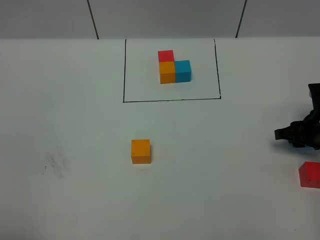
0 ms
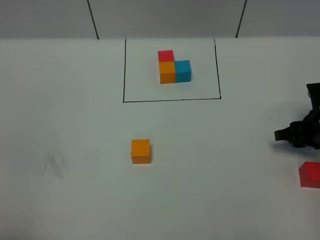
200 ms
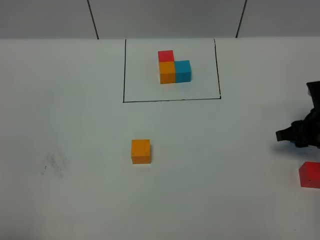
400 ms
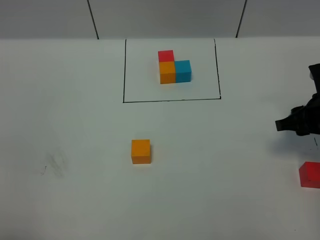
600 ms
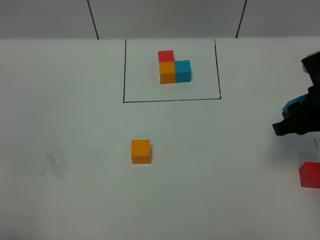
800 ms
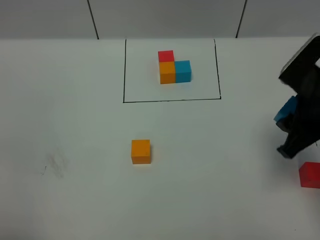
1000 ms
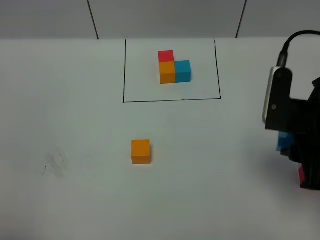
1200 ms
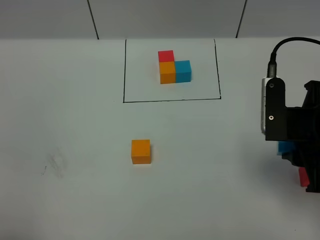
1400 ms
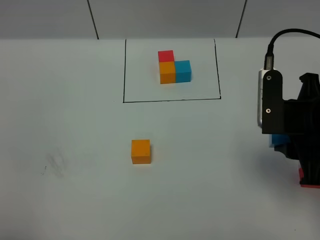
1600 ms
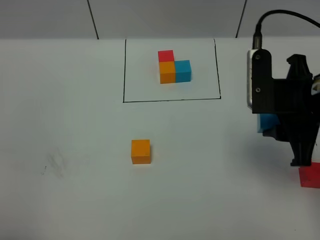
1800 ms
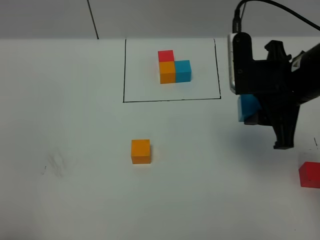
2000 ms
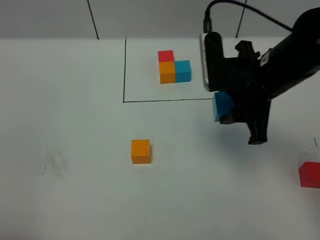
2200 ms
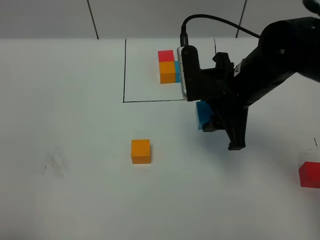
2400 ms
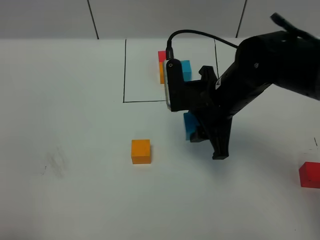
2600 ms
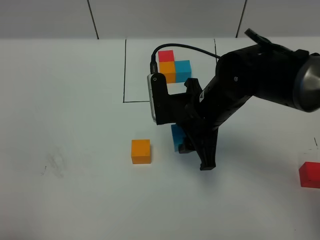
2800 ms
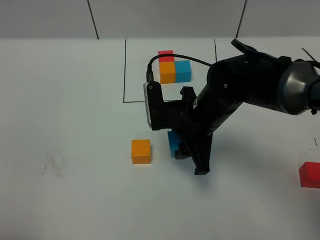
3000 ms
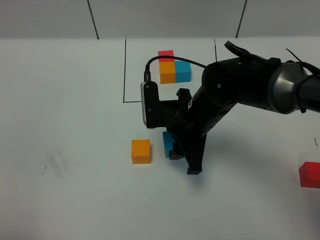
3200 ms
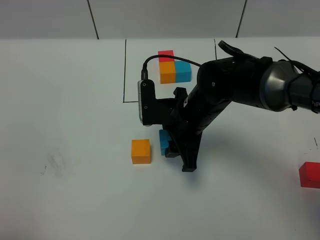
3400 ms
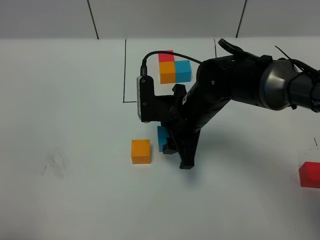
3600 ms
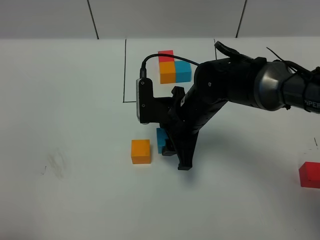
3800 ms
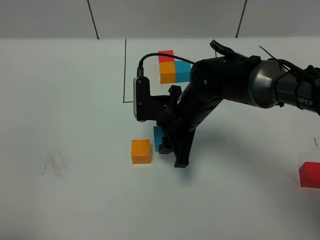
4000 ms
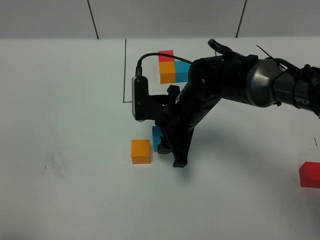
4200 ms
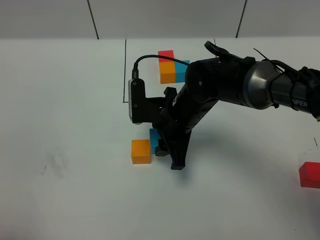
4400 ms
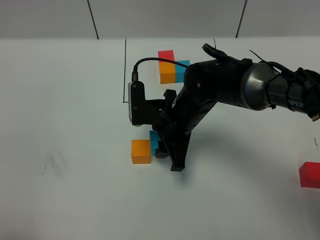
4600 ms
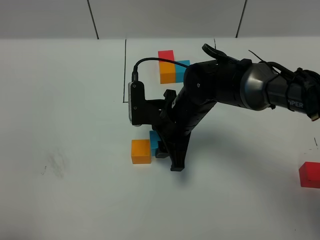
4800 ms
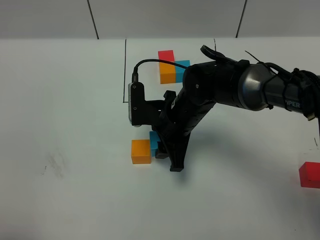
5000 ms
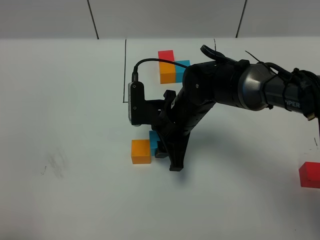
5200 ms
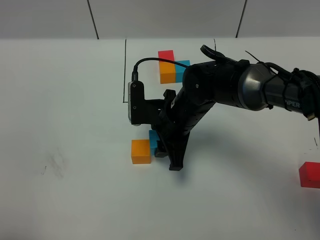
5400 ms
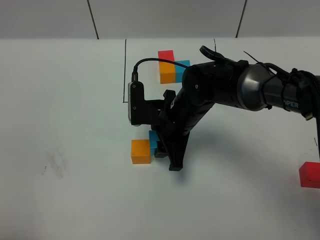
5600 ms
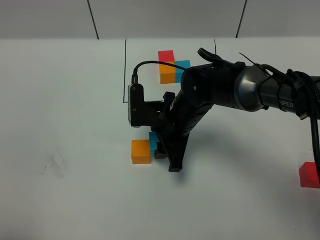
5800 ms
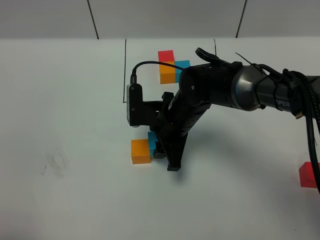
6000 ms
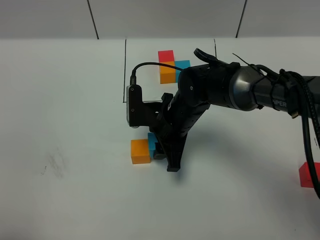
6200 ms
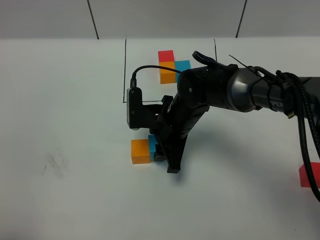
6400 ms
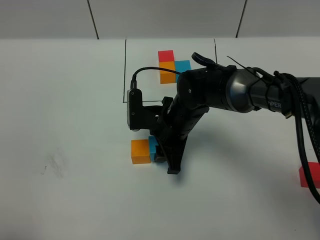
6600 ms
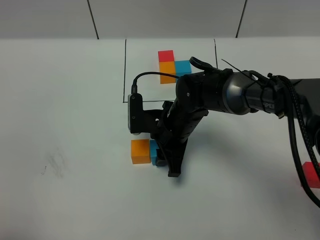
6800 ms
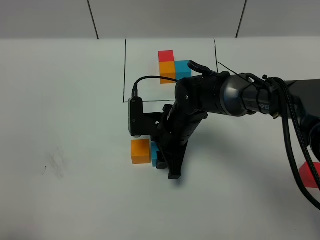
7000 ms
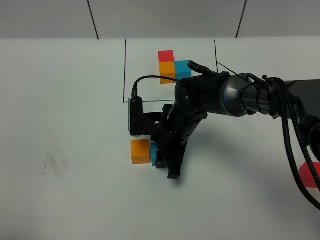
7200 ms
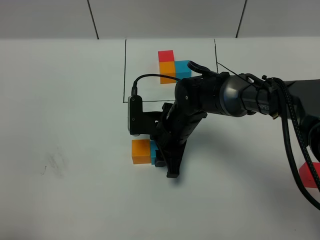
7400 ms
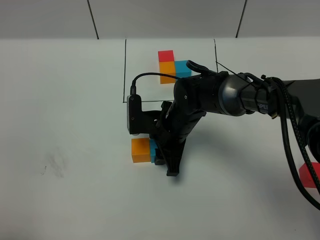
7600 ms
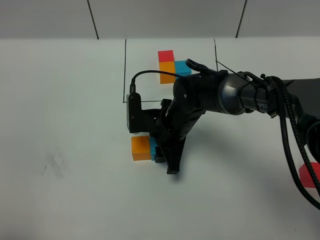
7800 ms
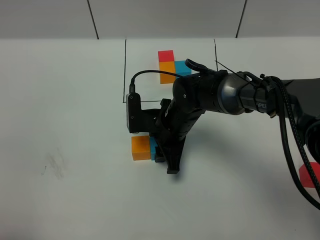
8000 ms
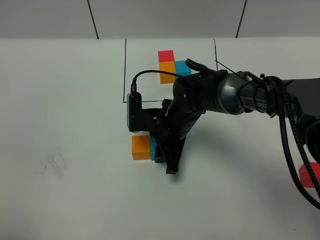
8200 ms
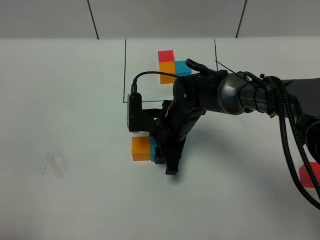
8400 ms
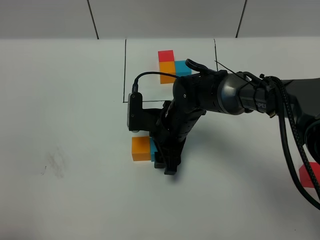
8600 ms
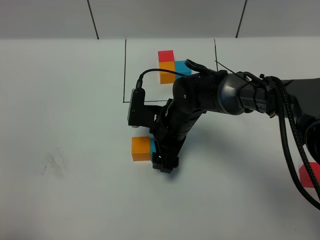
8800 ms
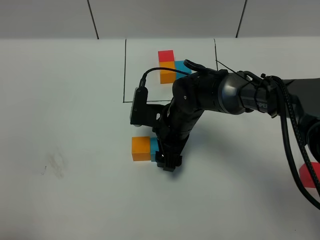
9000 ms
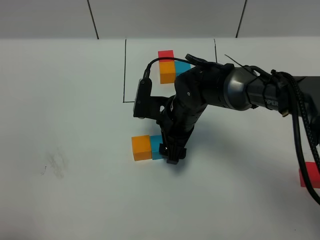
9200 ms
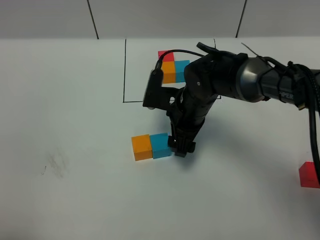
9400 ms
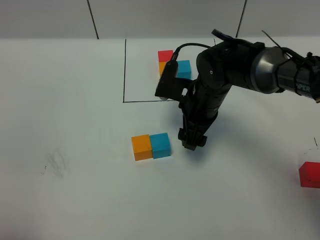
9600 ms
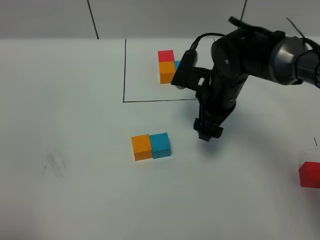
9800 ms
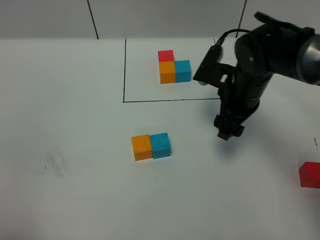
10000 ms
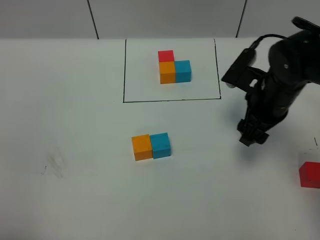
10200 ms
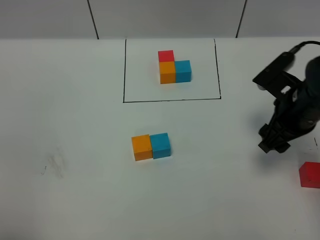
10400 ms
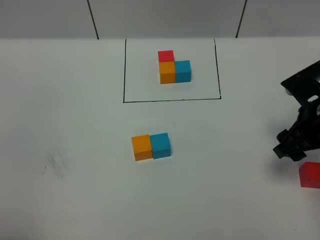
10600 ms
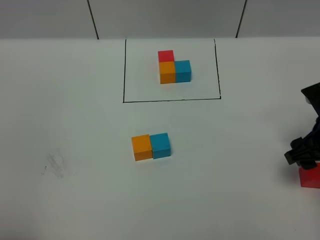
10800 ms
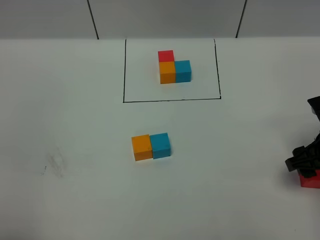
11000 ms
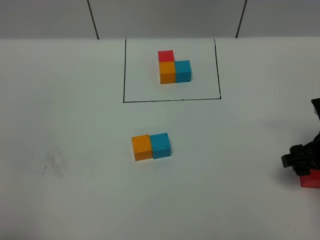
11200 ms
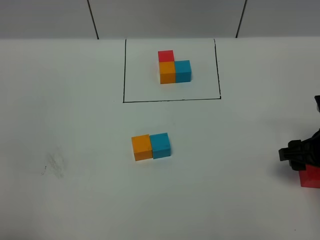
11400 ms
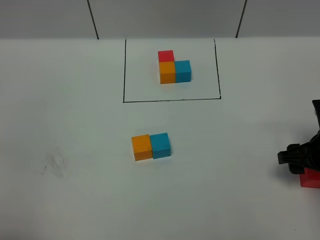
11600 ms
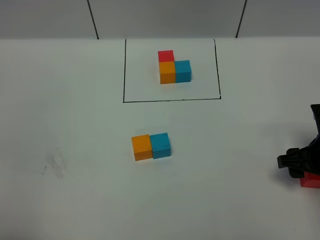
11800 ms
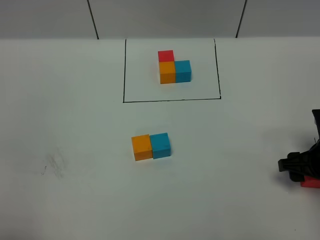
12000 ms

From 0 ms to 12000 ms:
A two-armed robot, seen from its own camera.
Task of the whole recording: According to the building block template in front, assemble the scattered blocks together.
Step, from 0 ms to 9000 ms: Put the blue cube on the right of the orange cube.
From 0 ms to 1600 ms: The right gripper travels upward, to the left and backward by approximately 20 cm.
From 1600 ms to 3000 ms: The right gripper goes approximately 20 cm to the left, downward and forward.
From 3000 ms to 4400 ms: The grippers make only small movements.
From 4400 ms to 7600 ms: The grippers stay close to where they were, moving slightly.
From 7600 ms to 9000 ms: The right gripper opens up.
From 9000 ms to 10400 ms: The right gripper goes some 20 cm to the right and upward.
From 10400 ms to 12000 ms: The right gripper moves downward, to the right and backward, roughly 10 cm.

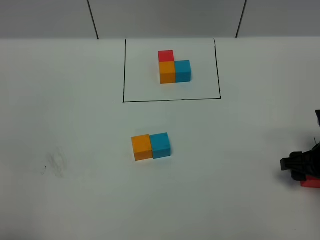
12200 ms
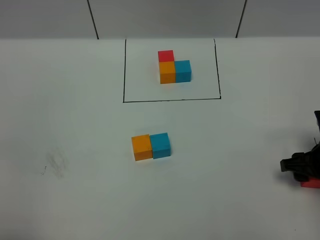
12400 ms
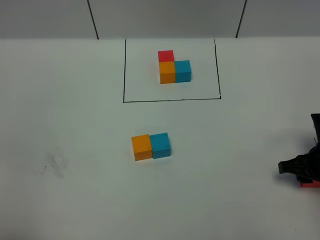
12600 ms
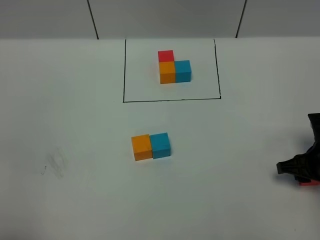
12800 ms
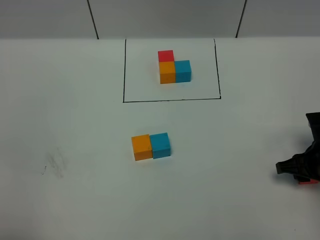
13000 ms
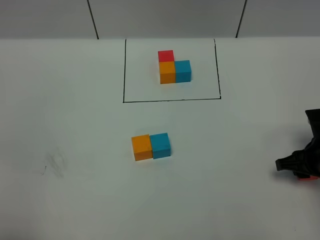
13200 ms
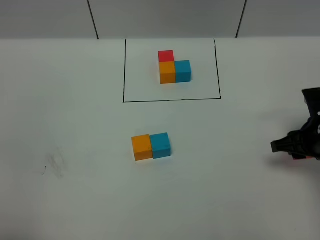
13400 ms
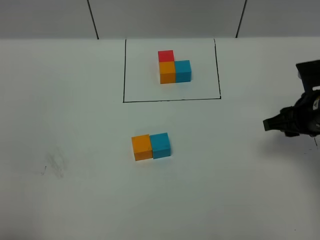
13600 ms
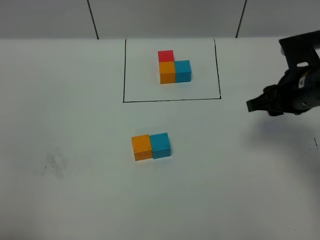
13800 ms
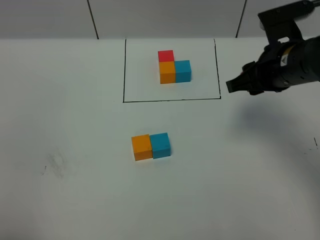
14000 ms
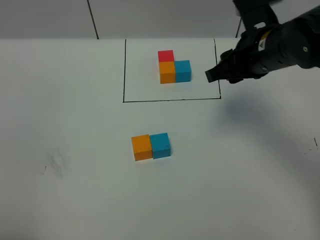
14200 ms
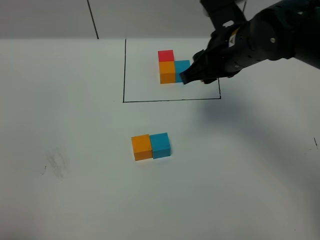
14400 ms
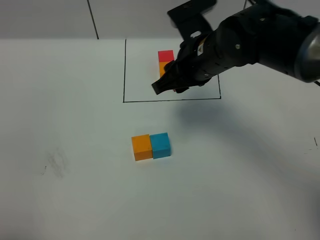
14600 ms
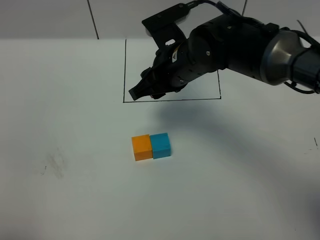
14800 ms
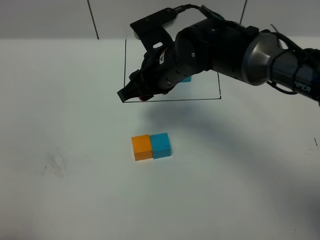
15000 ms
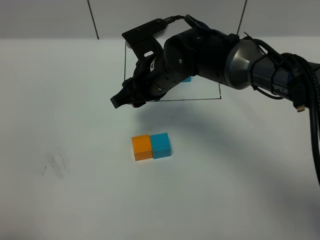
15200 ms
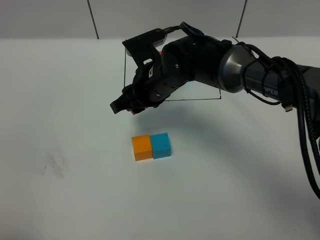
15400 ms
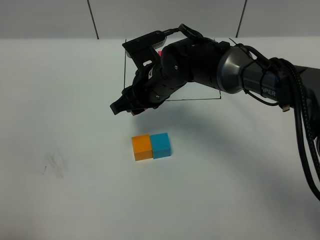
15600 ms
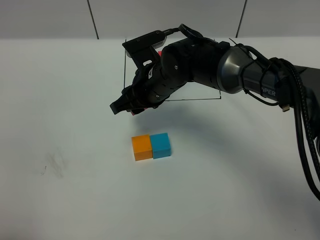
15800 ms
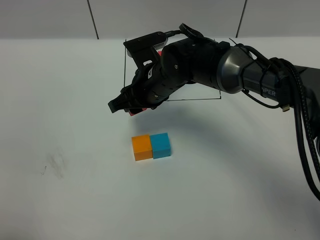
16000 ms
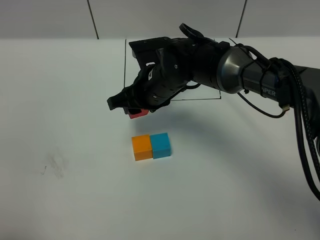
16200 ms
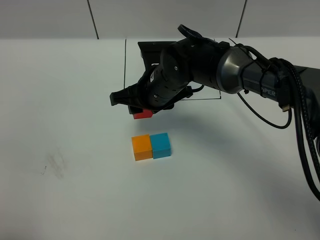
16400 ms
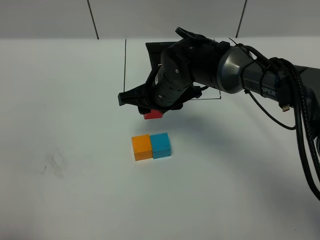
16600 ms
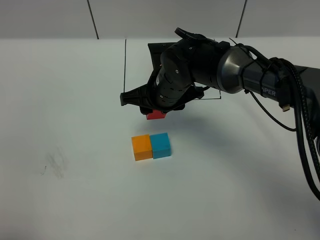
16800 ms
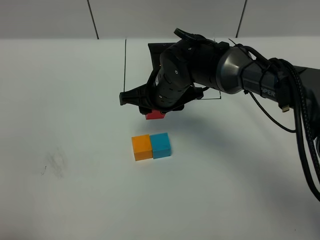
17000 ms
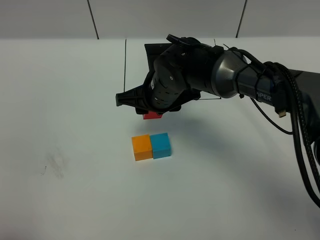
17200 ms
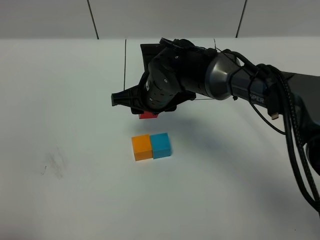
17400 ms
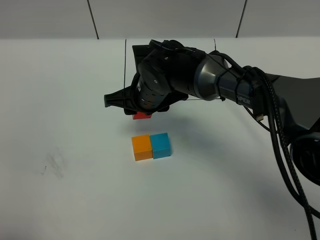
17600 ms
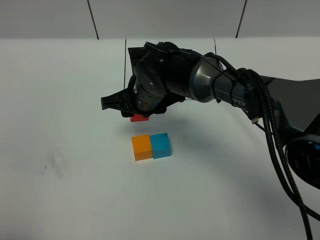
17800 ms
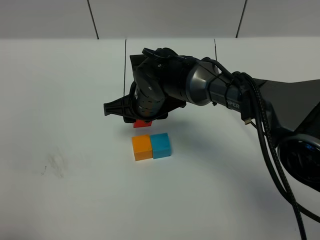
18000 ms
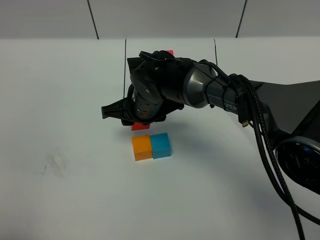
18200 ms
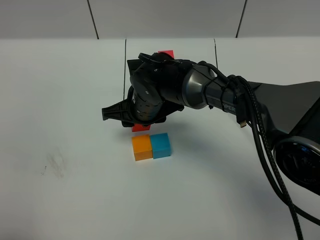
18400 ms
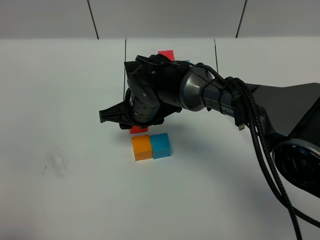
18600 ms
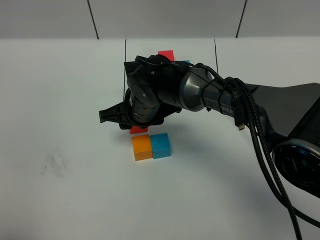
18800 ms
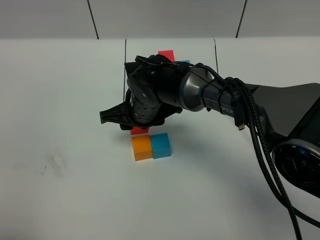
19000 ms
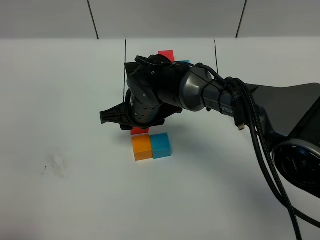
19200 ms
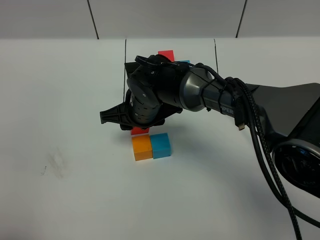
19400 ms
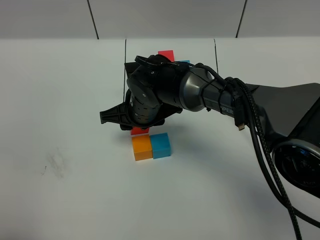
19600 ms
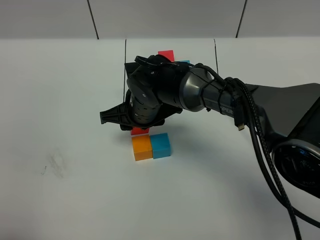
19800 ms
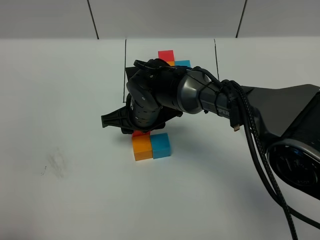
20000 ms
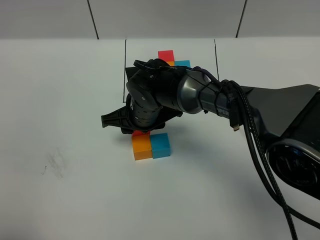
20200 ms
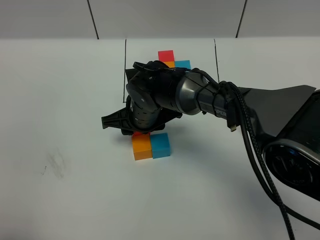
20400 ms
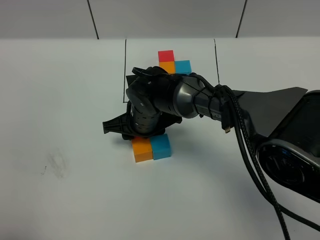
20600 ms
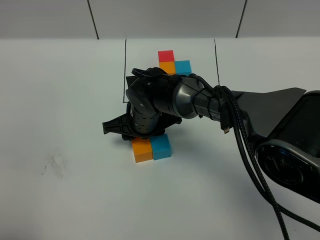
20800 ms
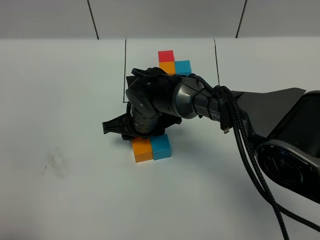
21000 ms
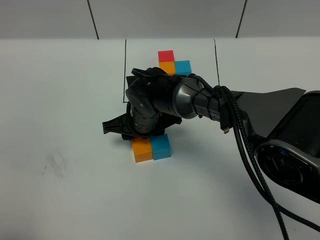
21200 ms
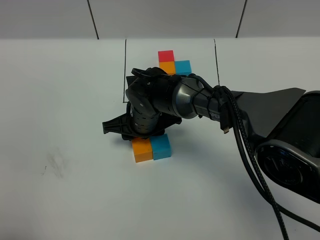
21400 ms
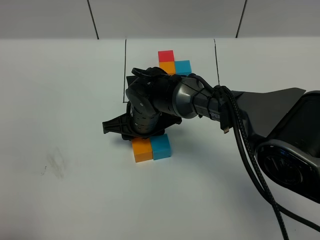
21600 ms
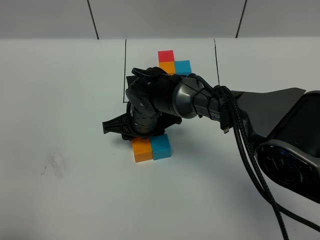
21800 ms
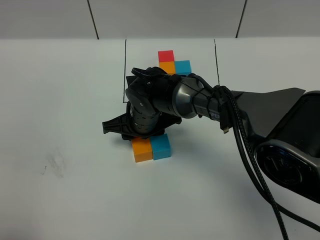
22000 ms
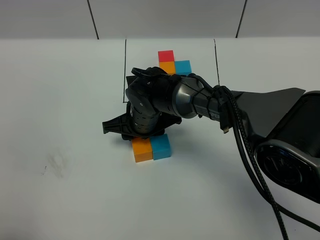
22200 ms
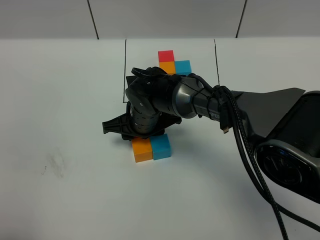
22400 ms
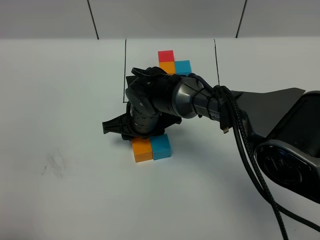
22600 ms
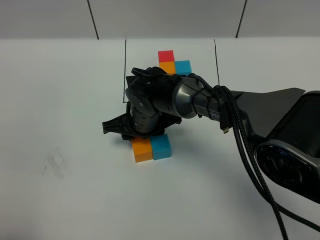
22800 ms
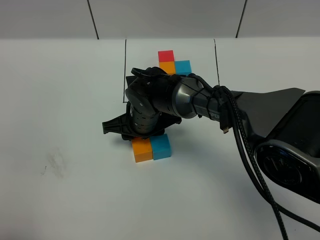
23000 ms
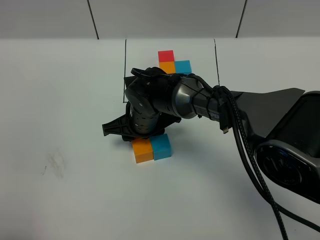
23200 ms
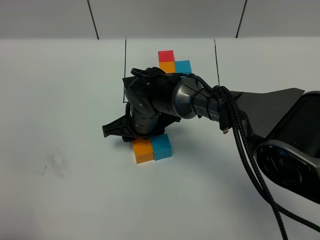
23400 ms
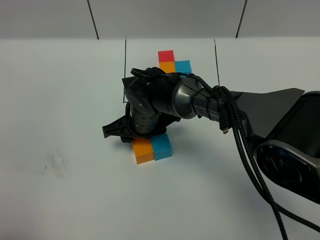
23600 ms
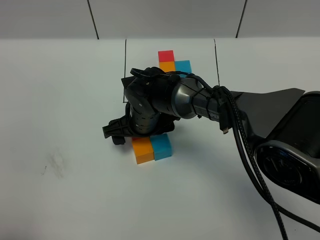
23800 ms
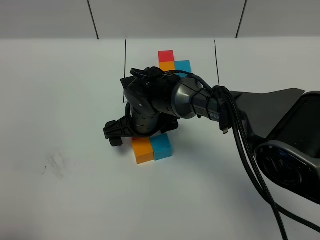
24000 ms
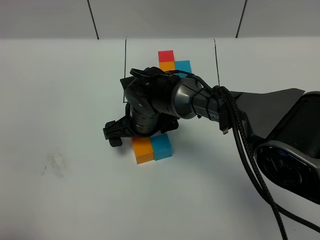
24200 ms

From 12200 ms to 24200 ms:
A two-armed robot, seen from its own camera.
Task of the whole recording: According to the building block template in front, assemble the scattered blocks together.
From 12200 ms to 13800 ms: The right gripper shifts some 15 cm upward, to the left and forward.
From 13800 ms to 15200 ms: The right gripper heads to the left, covering approximately 20 cm.
From 18200 ms to 19800 ms: Both grippers stay about where they are.
From 19800 ms to 21200 ms: The grippers move only a little.
From 21200 ms to 22600 ms: Neither gripper changes place.
From 22600 ms to 24200 ms: The right gripper opens up.
